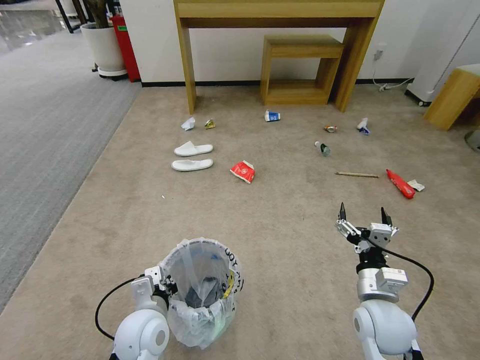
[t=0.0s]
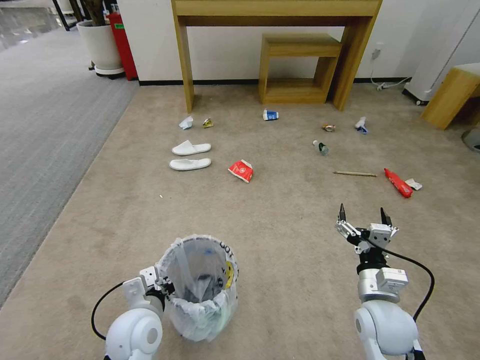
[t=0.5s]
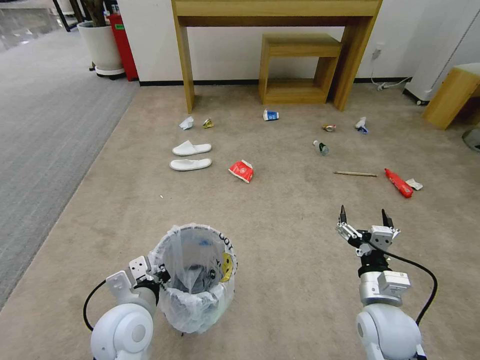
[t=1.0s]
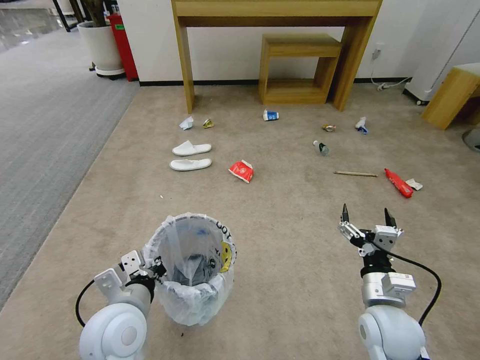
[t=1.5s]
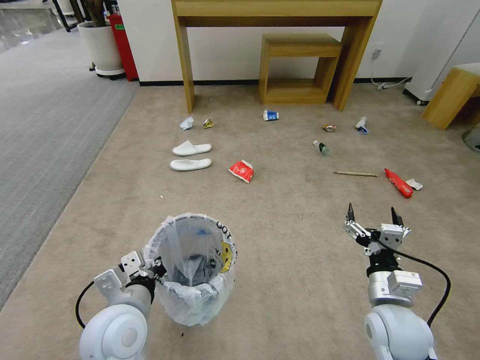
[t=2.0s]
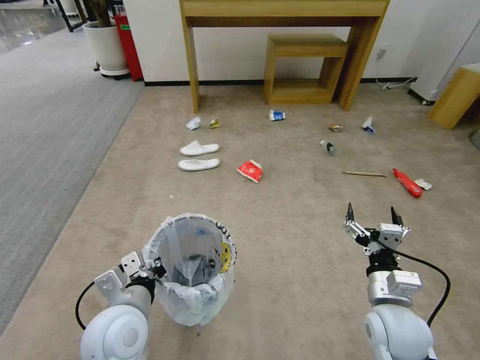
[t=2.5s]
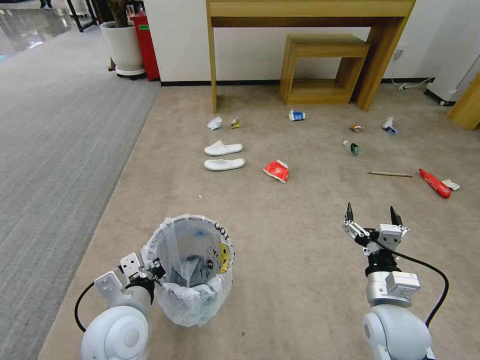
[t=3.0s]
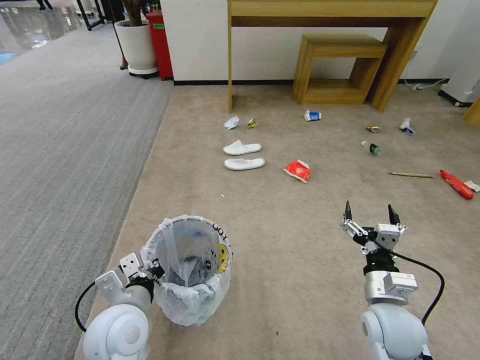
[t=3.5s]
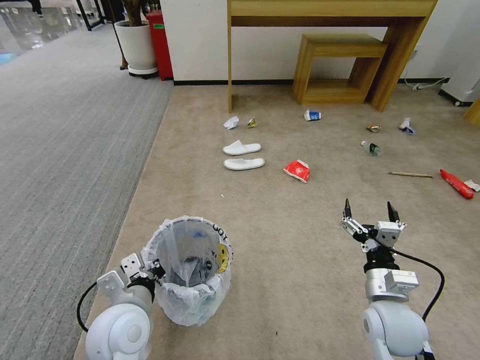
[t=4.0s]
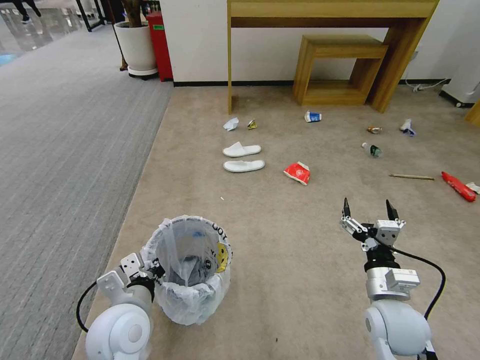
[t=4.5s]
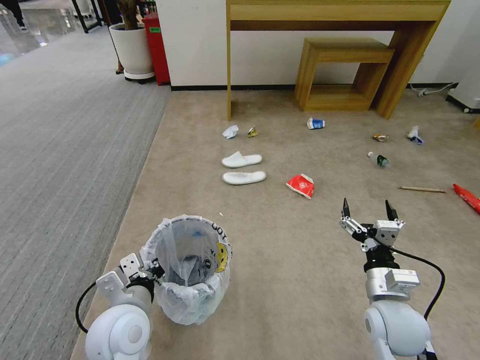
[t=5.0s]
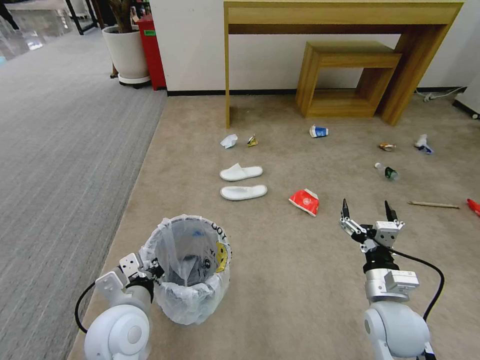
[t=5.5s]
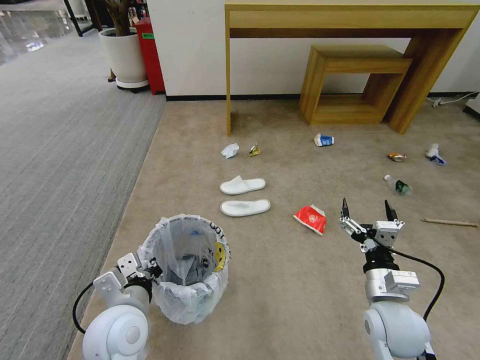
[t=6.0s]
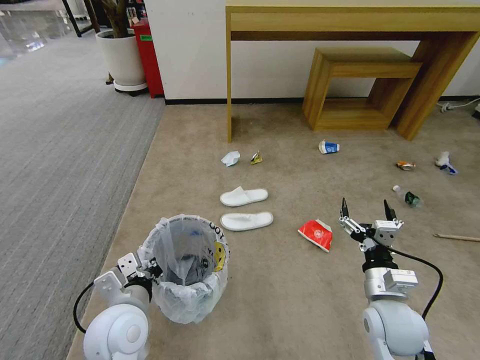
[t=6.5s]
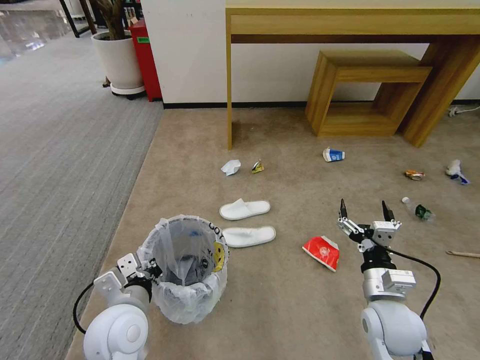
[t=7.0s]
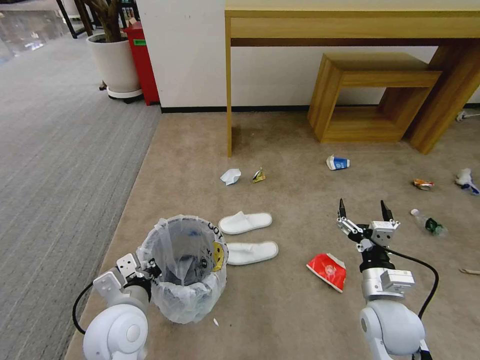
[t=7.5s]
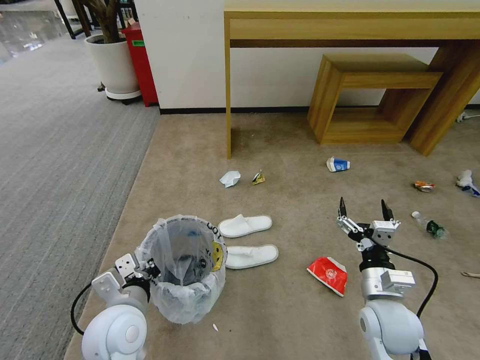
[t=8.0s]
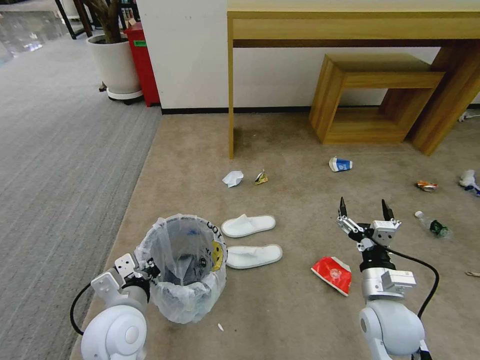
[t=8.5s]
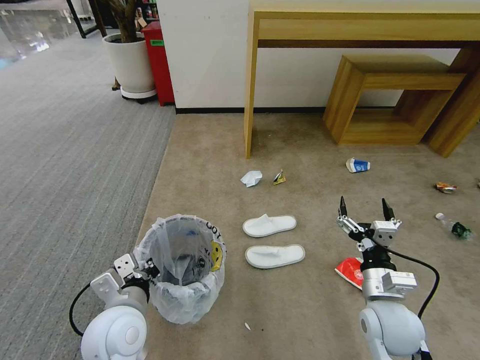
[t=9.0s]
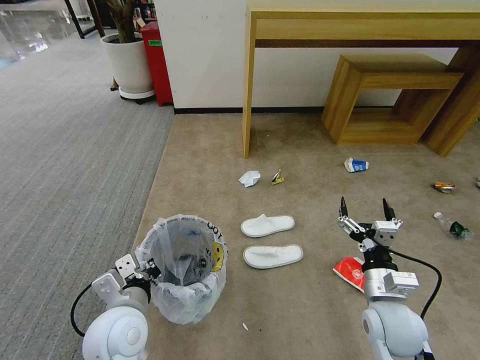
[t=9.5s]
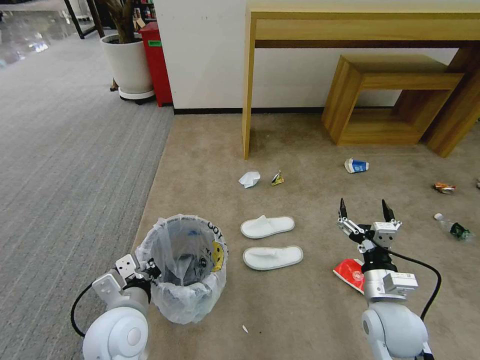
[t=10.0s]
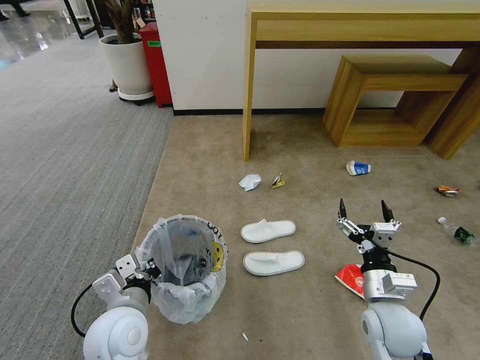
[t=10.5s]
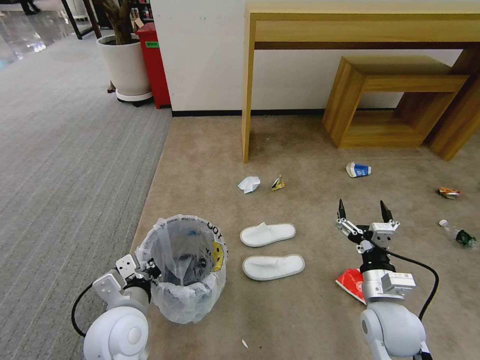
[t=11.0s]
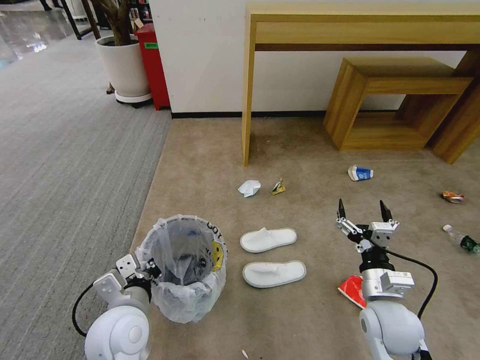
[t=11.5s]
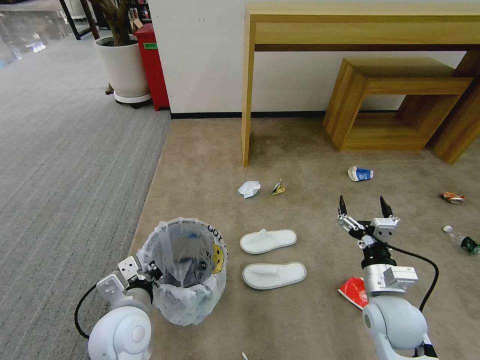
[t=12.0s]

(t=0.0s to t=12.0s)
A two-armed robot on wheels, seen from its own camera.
Task of the whole recording: Pick up the trash bin and place the garbage on the floor into it.
t=0.0s - t=2.0s: The left gripper heads upward, covering about 10 cm.
t=8.0s - t=12.0s: Both grippers stay put.

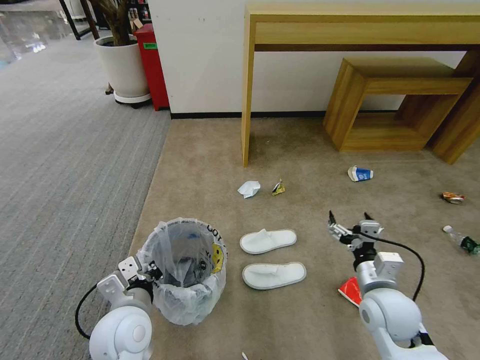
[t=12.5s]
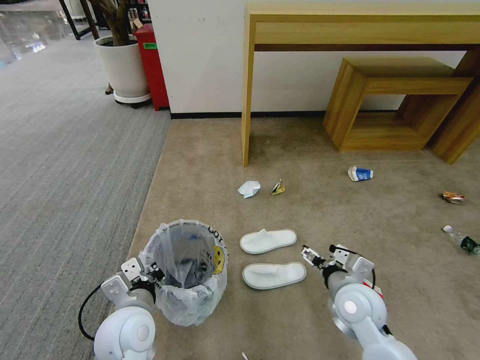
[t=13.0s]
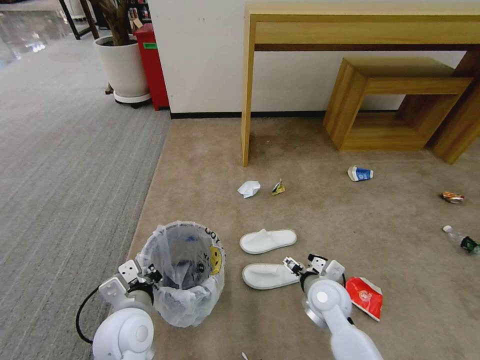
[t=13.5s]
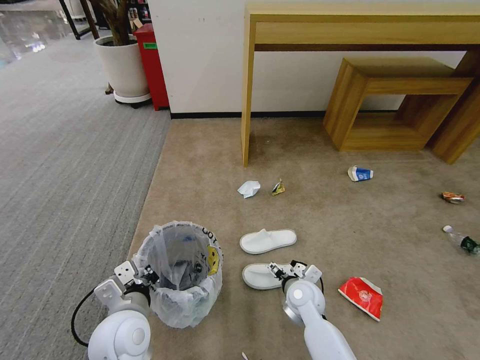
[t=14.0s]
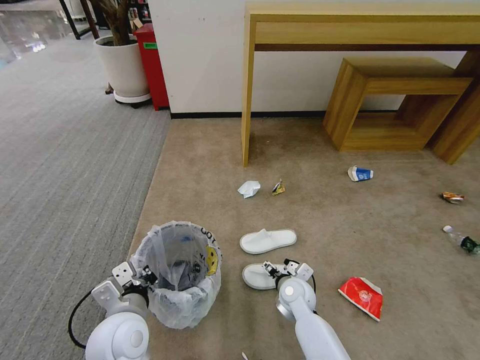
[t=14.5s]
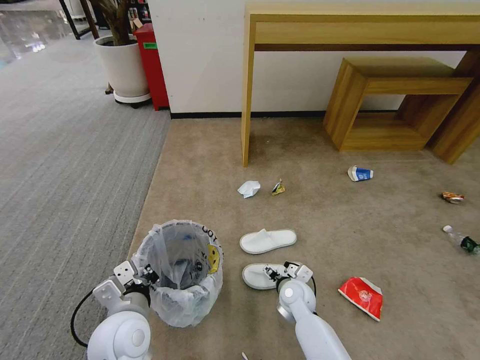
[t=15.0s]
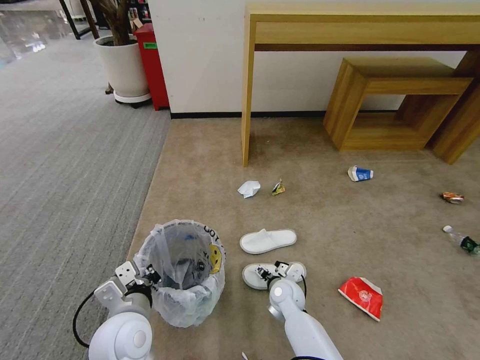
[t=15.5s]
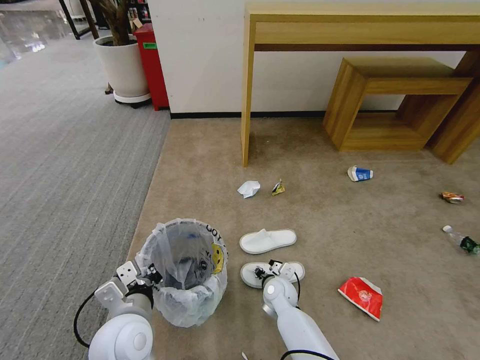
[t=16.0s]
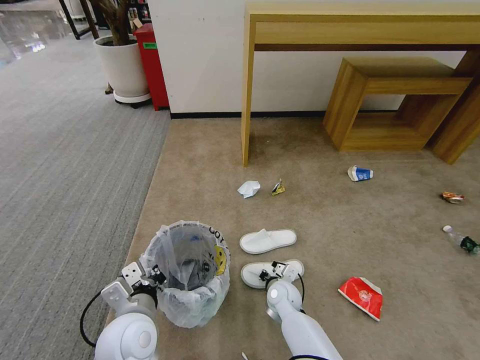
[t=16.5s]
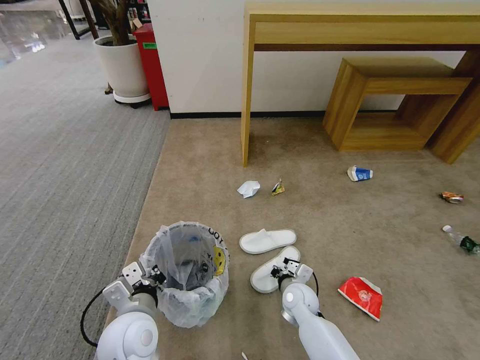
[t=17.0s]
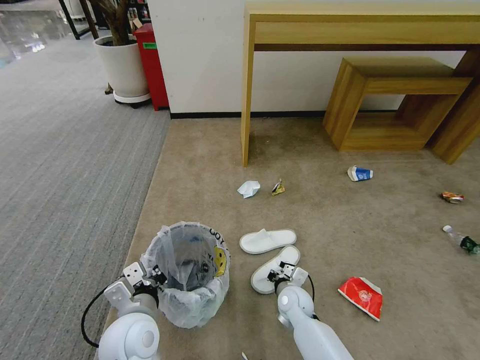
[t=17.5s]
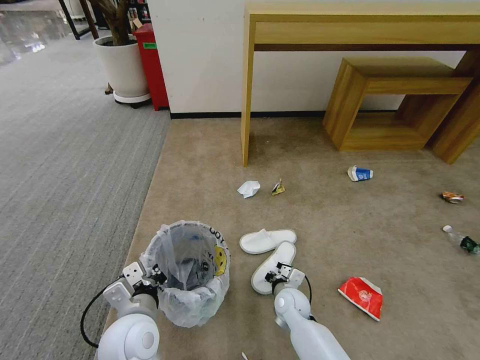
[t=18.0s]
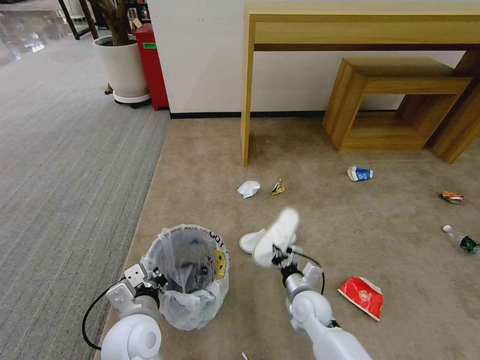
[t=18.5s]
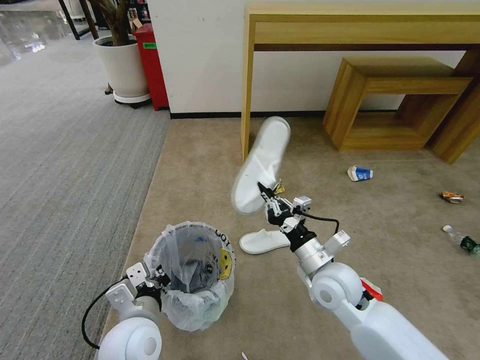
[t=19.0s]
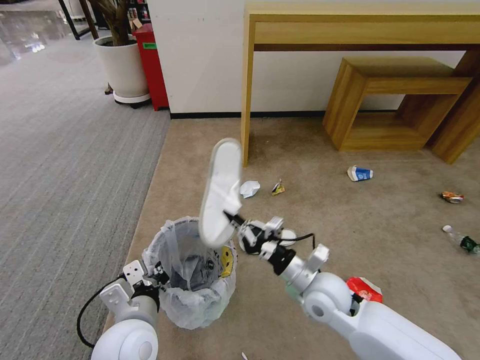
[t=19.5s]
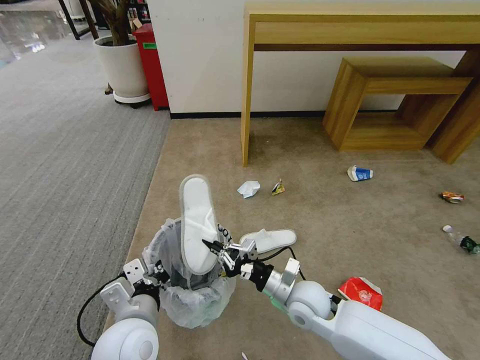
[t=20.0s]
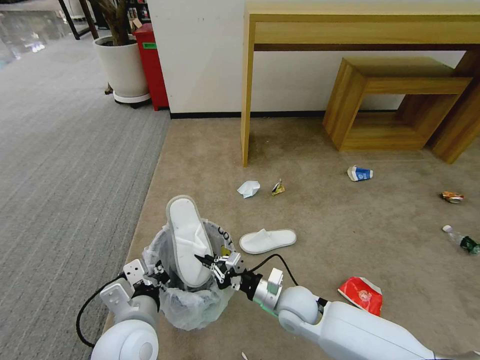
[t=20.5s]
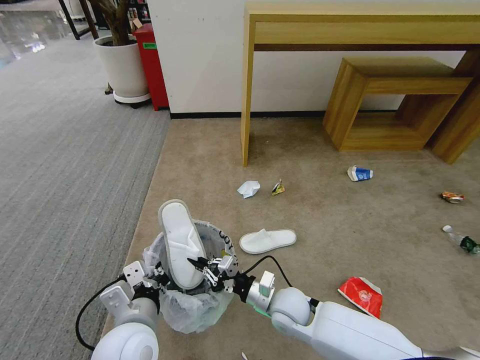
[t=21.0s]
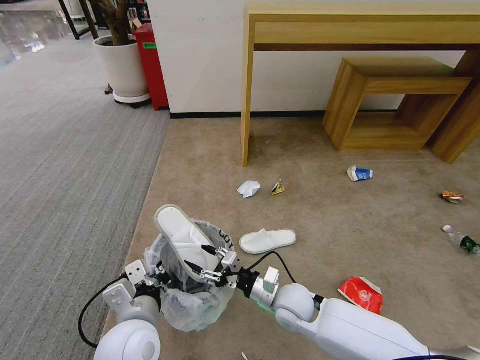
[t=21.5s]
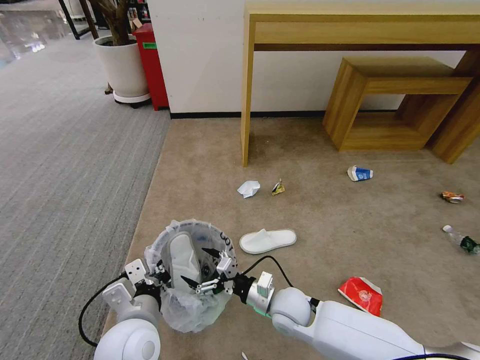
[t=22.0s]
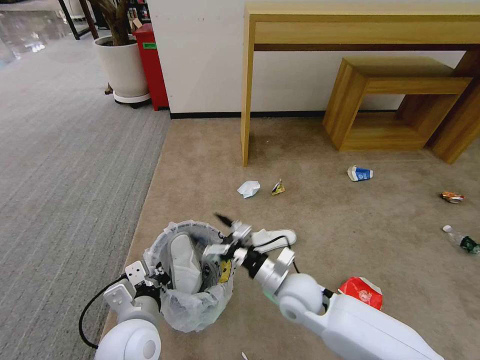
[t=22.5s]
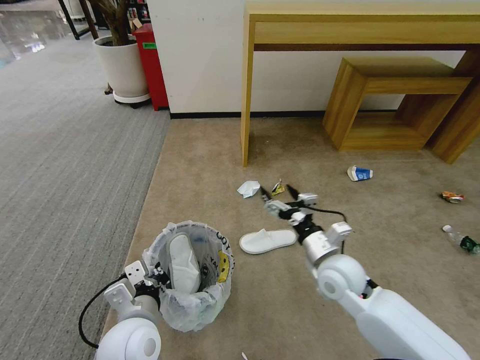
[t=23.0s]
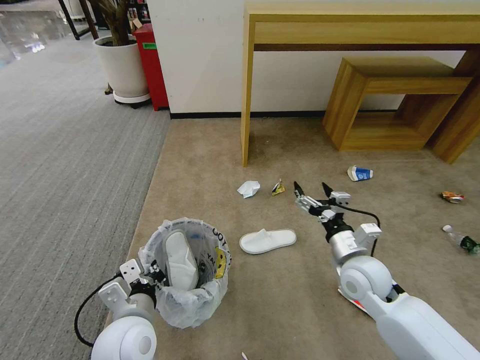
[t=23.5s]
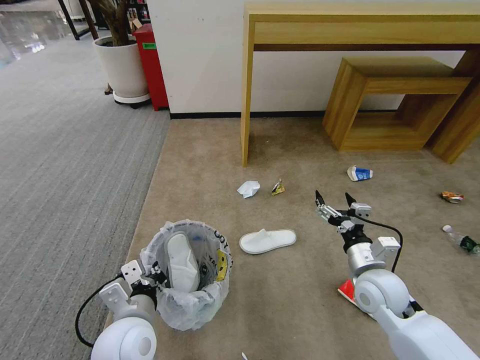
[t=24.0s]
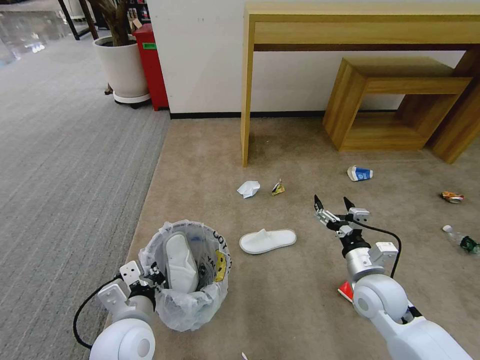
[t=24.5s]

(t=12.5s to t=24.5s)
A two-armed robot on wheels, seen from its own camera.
Task of the whole recording: Pick up the trash bin and place the garbage on the floor into it.
t=12.5s - t=14.5s: The right gripper is displaced to the left, downward and forward by about 20 cm.
t=14.5s - t=16.5s: The right gripper closes its fingers.
t=16.5s - t=18.5s: The right gripper shifts approximately 5 cm to the right.
t=18.5s - t=20.5s: The right gripper goes upward and returns, some 15 cm each way.
t=20.5s - t=22.5s: The right gripper heads upward, covering about 5 cm, and opens up.
t=22.5s - t=24.5s: The right gripper shifts approximately 15 cm to the right.

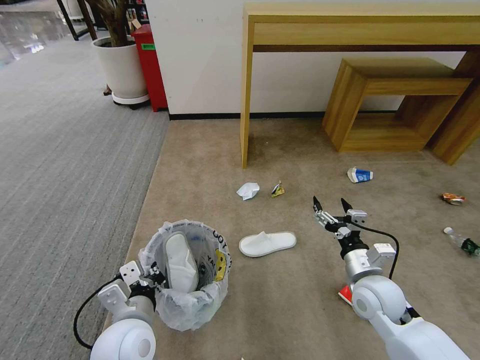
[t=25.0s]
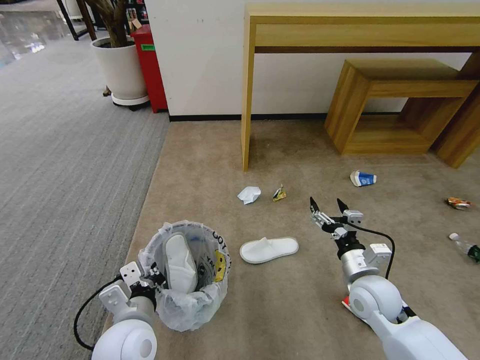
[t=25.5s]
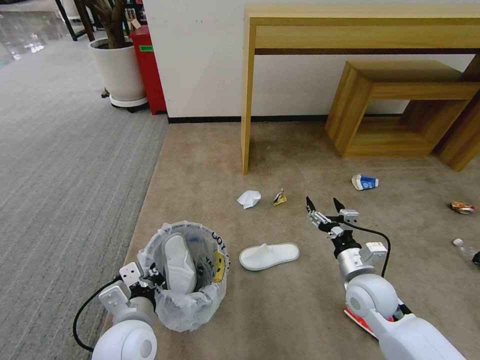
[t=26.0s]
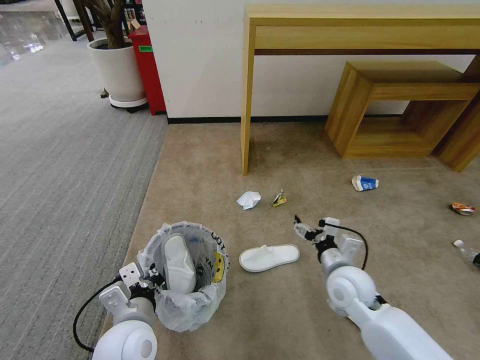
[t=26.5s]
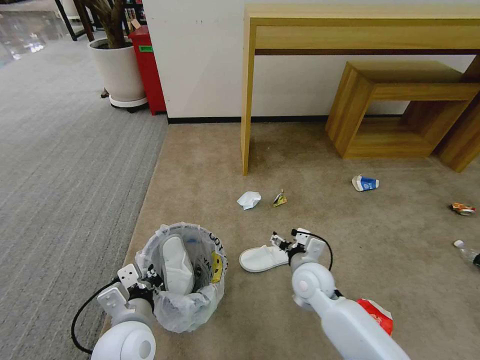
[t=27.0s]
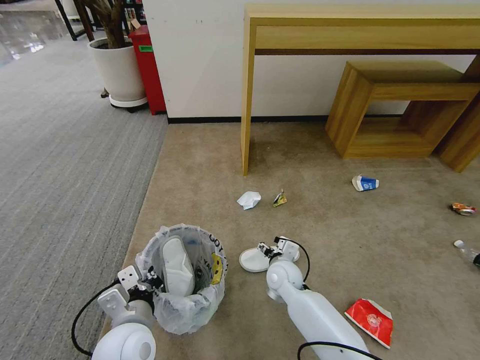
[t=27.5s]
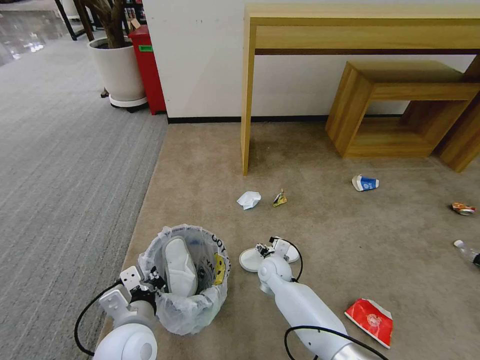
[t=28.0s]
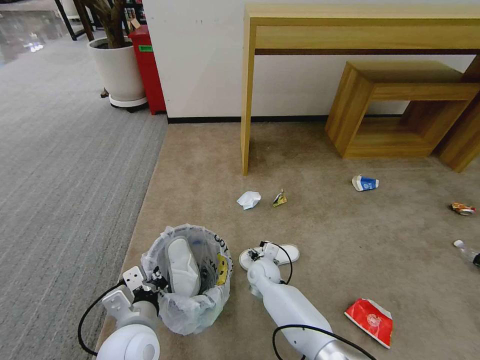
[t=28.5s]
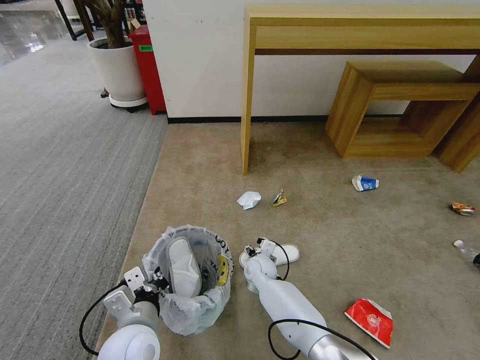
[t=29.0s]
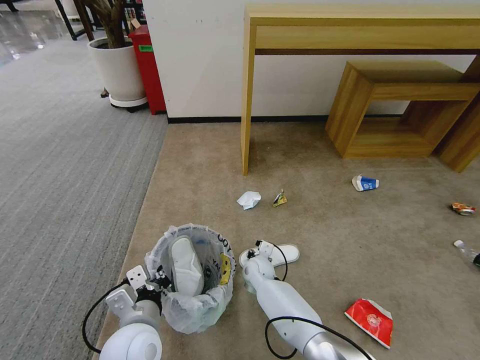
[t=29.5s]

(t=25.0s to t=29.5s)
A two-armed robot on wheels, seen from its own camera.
Task of the whole recording: Pick up the trash bin and place the garbage on the floor into it.
t=25.0s - t=27.0s: The right gripper moves to the left, approximately 10 cm.
t=27.0s - t=29.5s: The right gripper goes roughly 20 cm downward, to the left and forward, and closes up.
